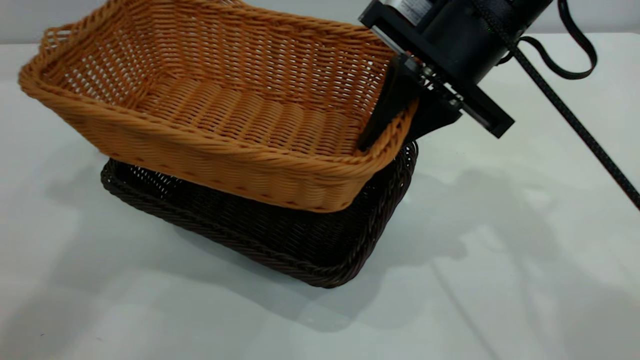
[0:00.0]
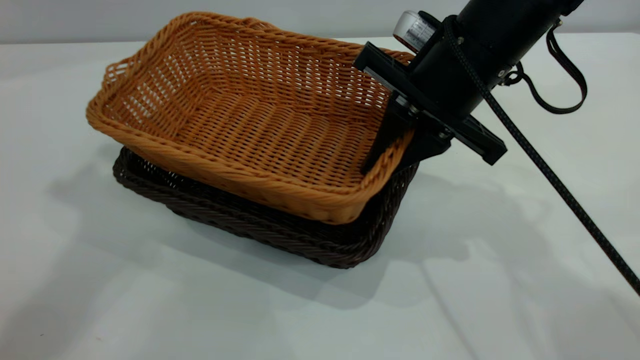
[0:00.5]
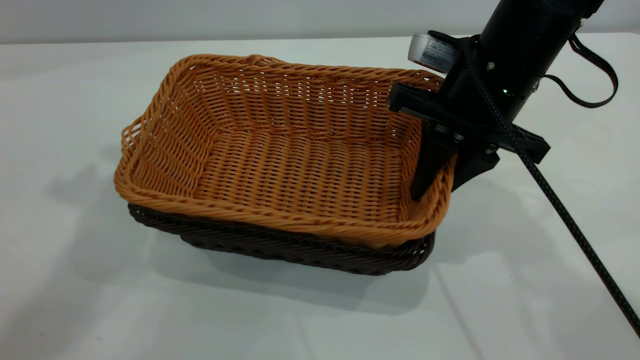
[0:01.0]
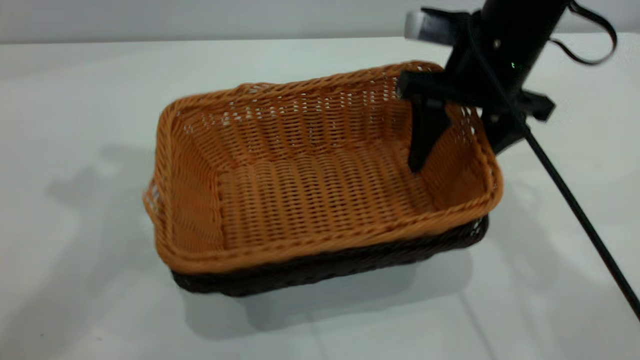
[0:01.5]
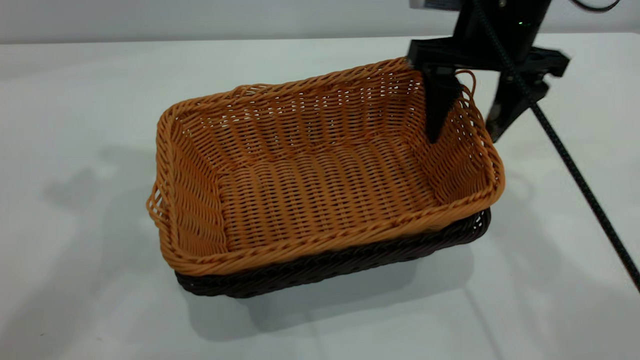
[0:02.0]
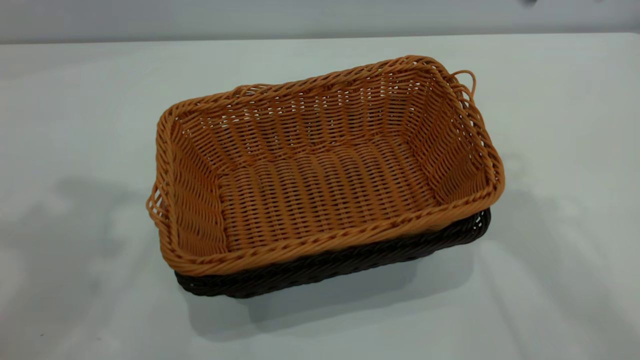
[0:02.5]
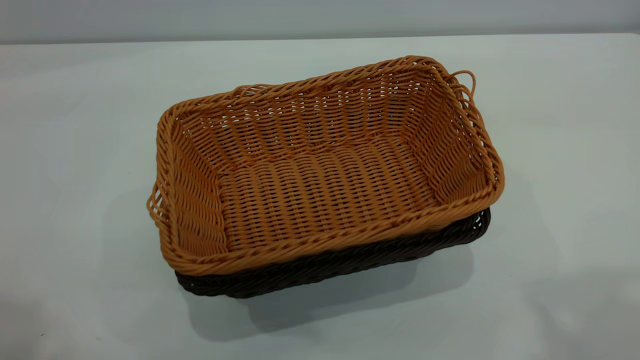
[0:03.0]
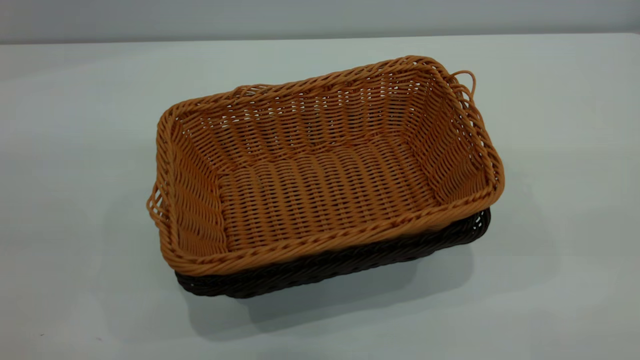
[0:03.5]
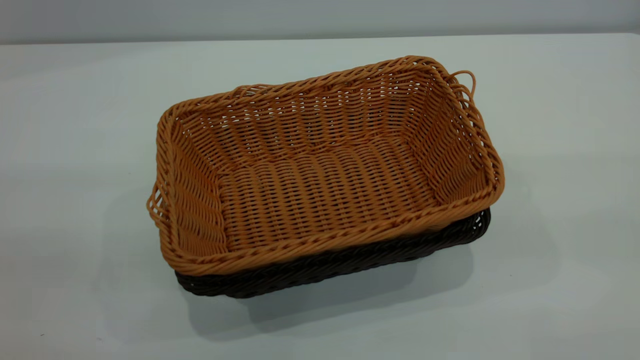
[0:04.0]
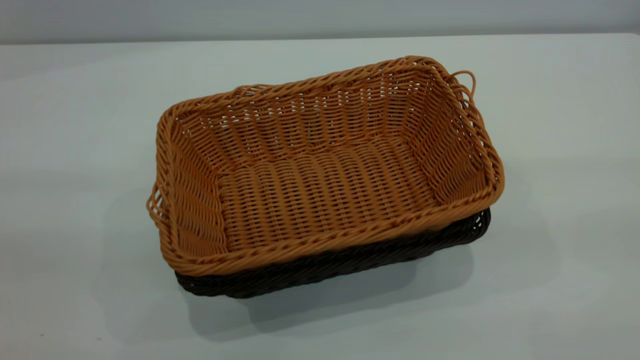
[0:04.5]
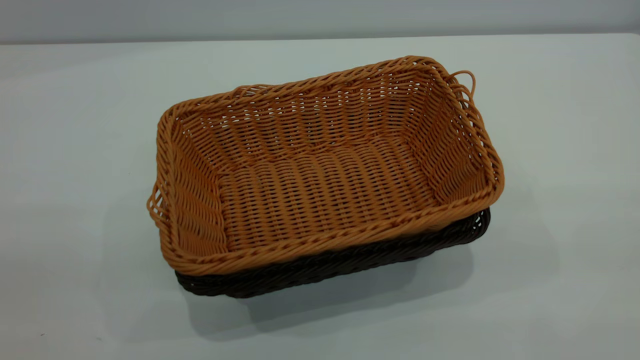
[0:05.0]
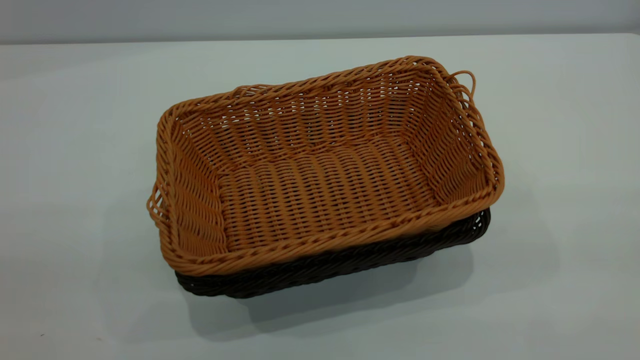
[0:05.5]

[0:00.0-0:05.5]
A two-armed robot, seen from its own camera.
Task of the whole recording: the left gripper grasp the black basket and place it in the center of the table, the right gripper grasp the brown basket and place it inside the black one.
Step, 0:00.0 to 0:02.0: Place the light basket on the dark basket.
0:00.0 to 0:02.0: The right gripper opens.
0:02.0 to 0:03.5: The left gripper is displaced backward by roughly 25 cm, while the right gripper heads backward, upward and to the right, covering approximately 35 cm.

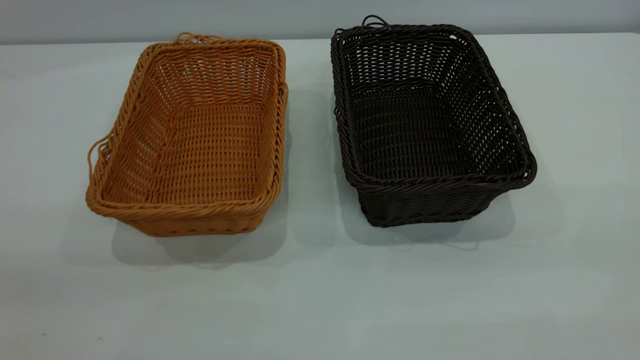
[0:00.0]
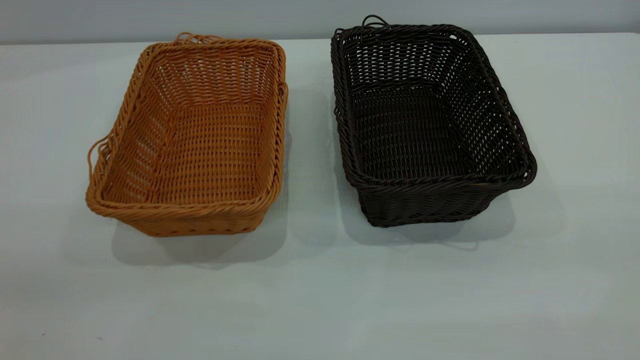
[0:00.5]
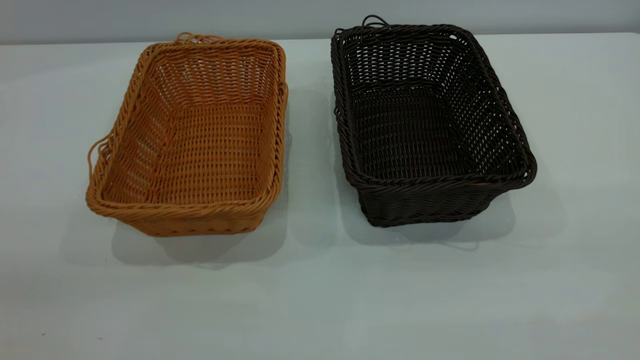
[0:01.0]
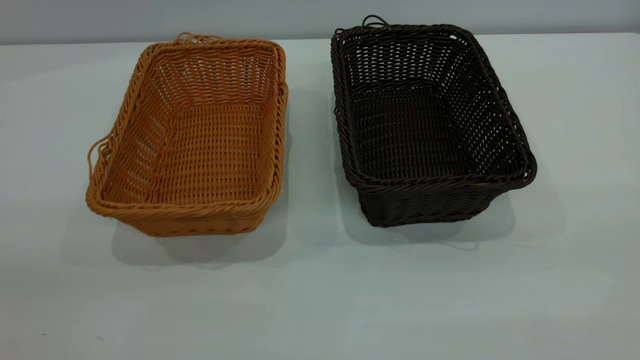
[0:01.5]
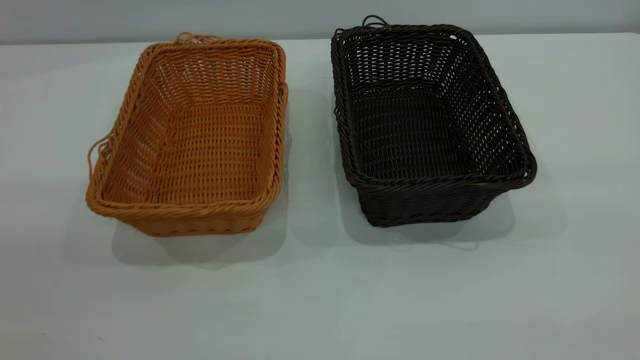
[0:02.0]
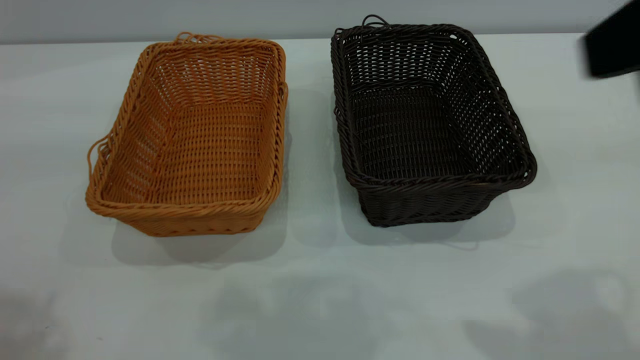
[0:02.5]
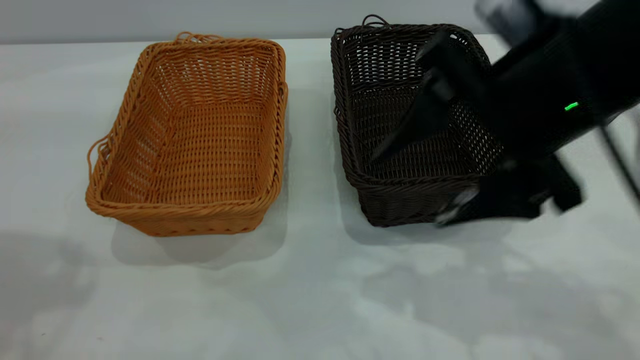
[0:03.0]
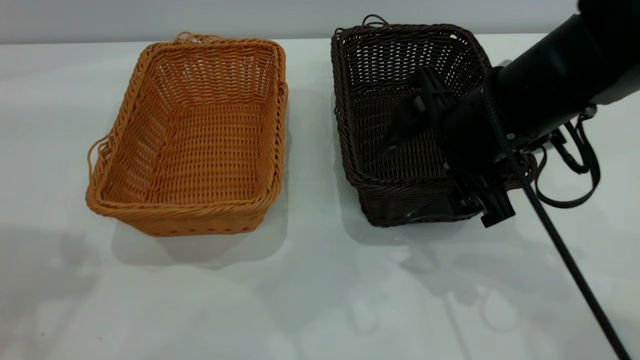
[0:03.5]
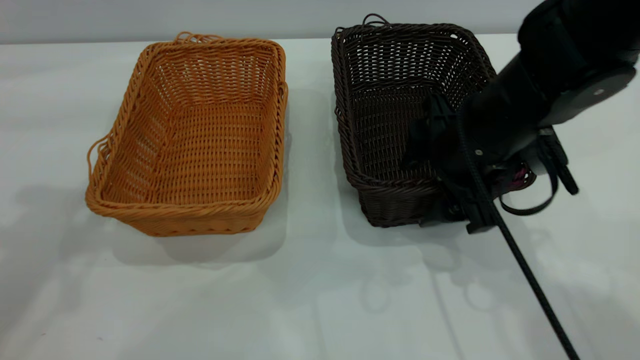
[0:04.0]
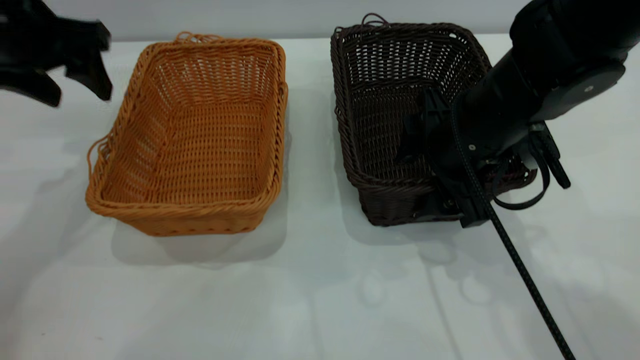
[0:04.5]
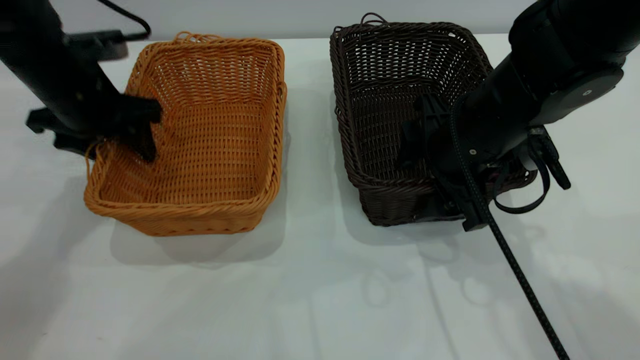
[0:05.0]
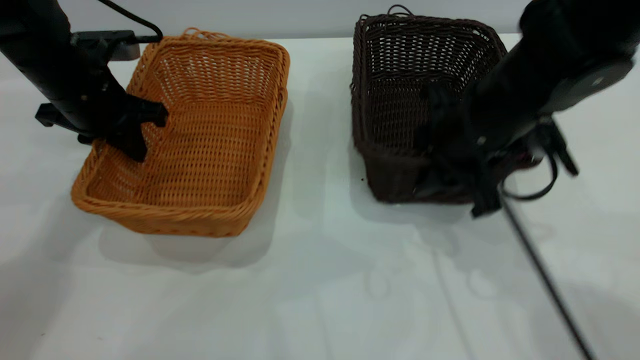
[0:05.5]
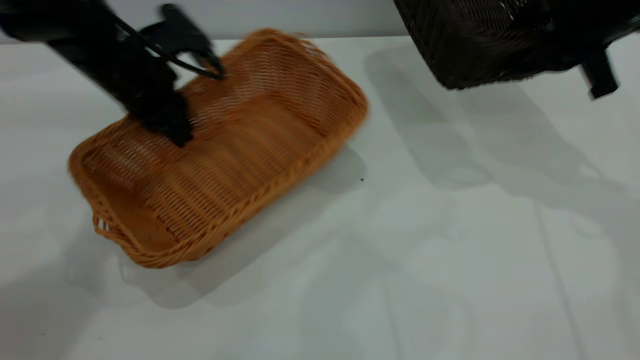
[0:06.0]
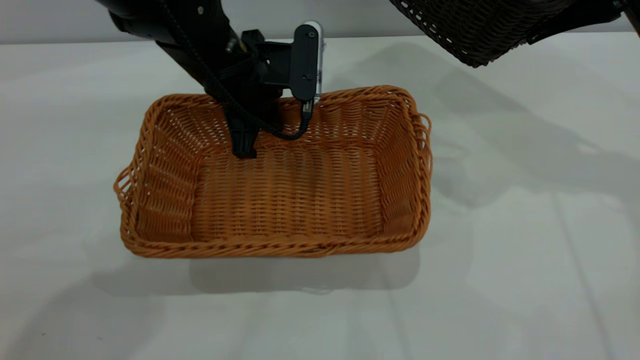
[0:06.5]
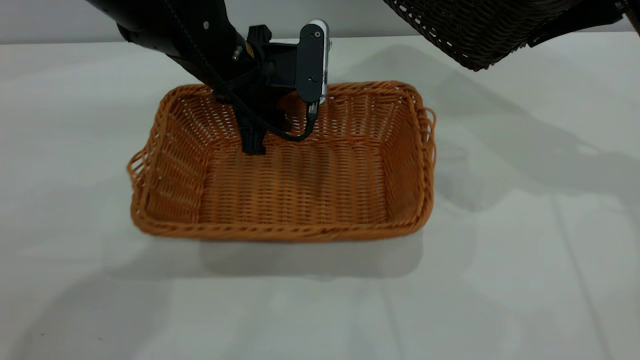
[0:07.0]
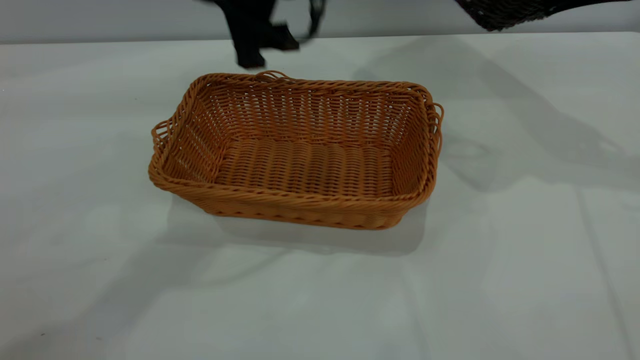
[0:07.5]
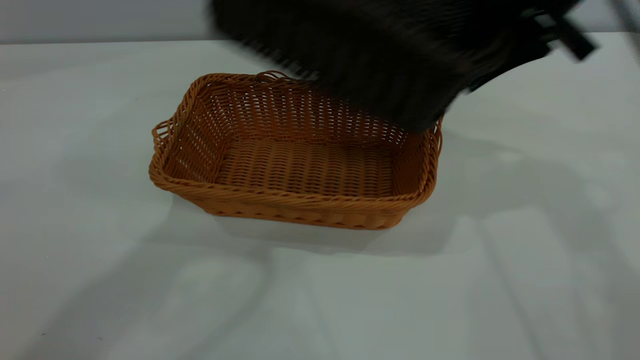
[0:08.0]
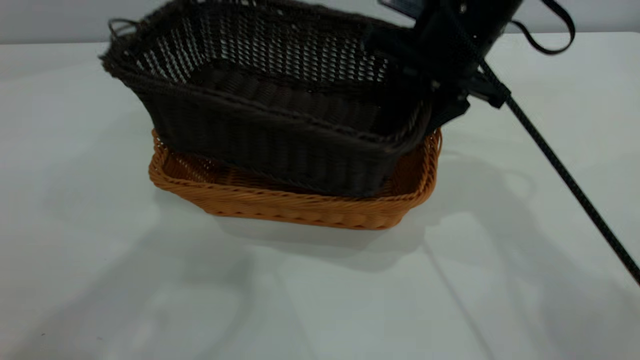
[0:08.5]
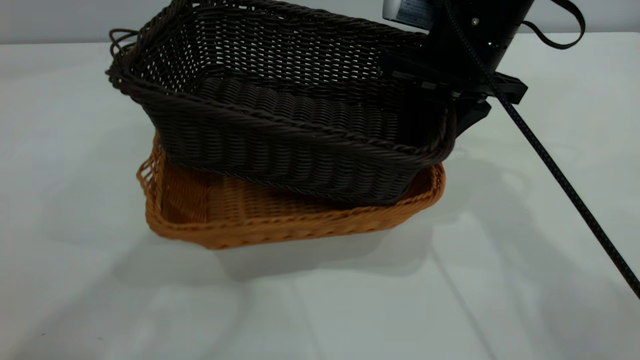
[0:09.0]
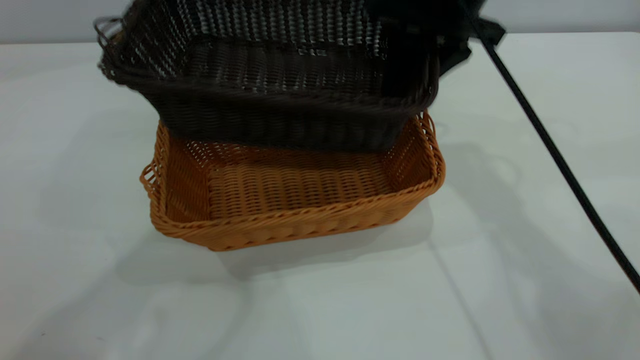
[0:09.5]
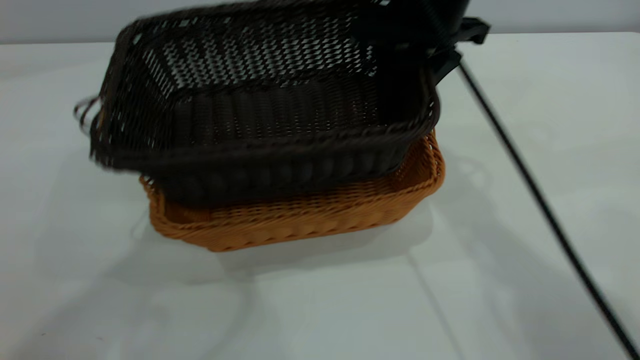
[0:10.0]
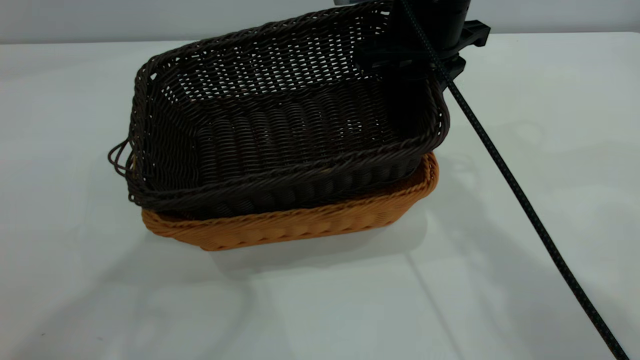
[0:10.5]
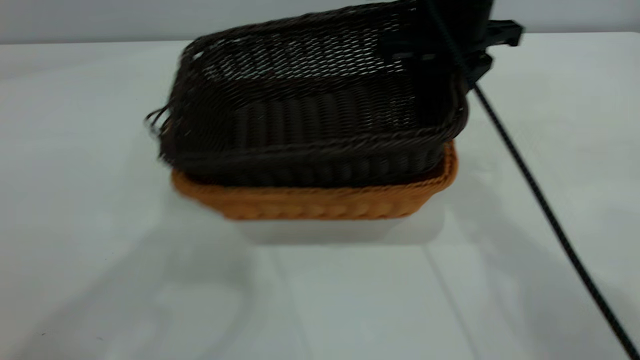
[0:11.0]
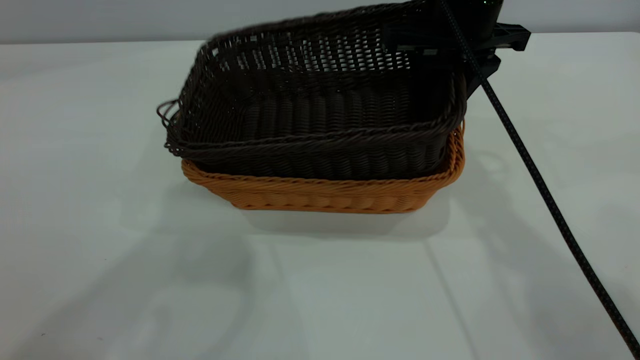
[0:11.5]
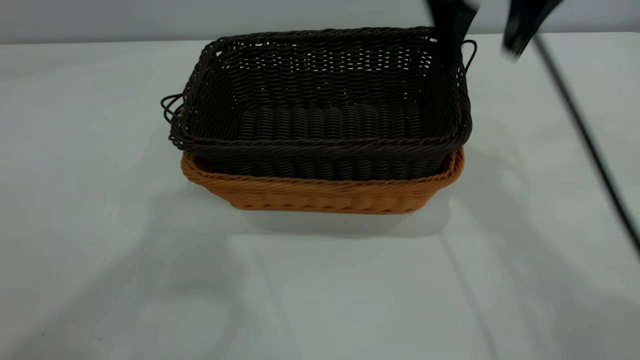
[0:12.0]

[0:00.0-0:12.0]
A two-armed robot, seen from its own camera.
Task of the whole recording: the left gripper grasp the brown basket and place it in the center of the table, the right gripper grasp the black basket and place it inside the brown one.
Step, 0:00.0 to 0:05.5: Pick up the light basket with the right gripper.
Step, 0:06.0 to 0:07.0: Place the light-colored basket in the center.
Step, 0:07.5 to 0:12.0: Place the dark basket on top of the light basket.
0:02.0 to 0:04.0: The right gripper is displaced forward, downward and to the left by about 40 cm; the left gripper moves forward, about 25 cm.
0:04.0 to 0:06.0: The left gripper is displaced downward, forward and to the right by about 25 cm, and closes; the right gripper shifts approximately 15 cm to the right, upward and forward, and closes up.
0:06.0 to 0:08.0: The right gripper is displaced to the left by about 10 cm; the left gripper is displaced upward by about 35 cm, and opens up.
0:08.0 to 0:10.0: The right gripper heads to the left, covering approximately 10 cm.
0:10.0 to 0:12.0: The right gripper heads upward and to the right, covering roughly 10 cm, and opens its fingers.

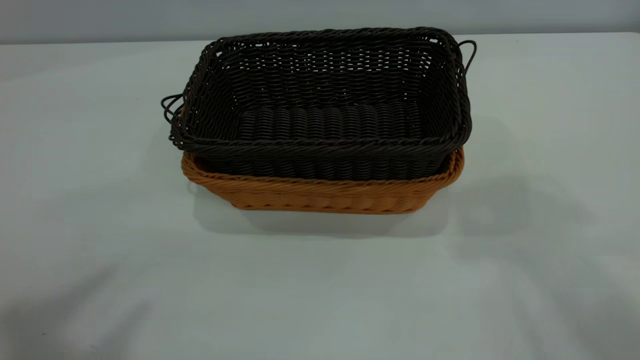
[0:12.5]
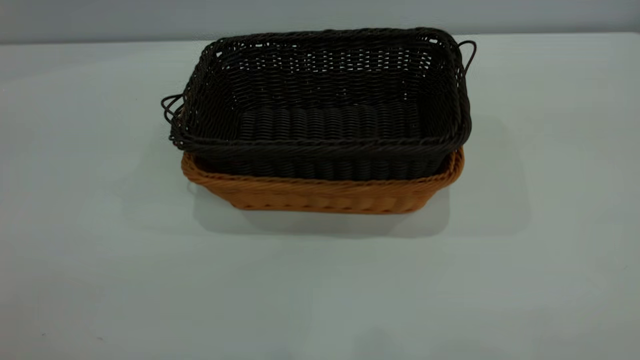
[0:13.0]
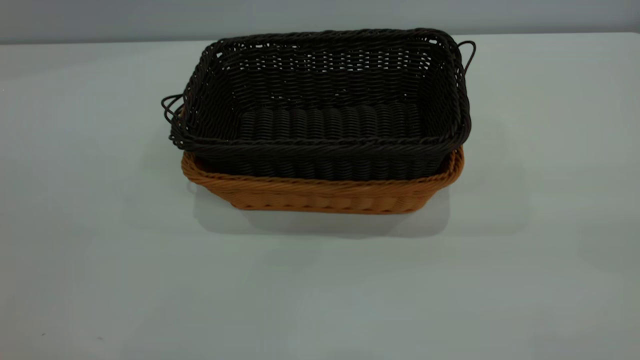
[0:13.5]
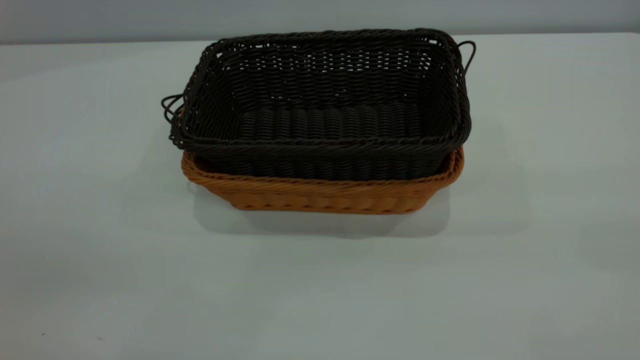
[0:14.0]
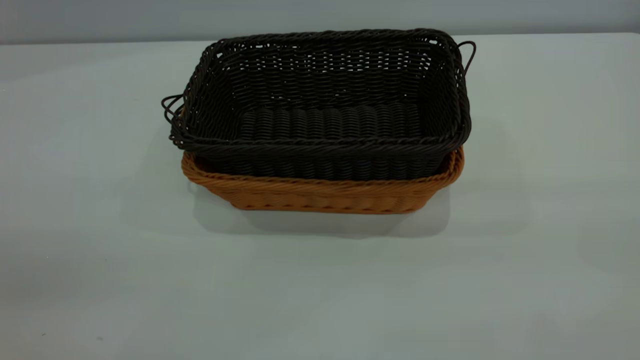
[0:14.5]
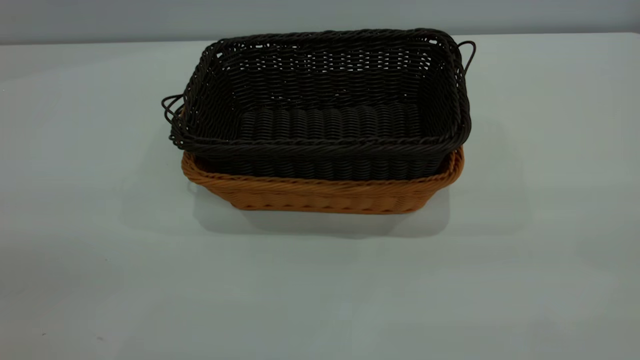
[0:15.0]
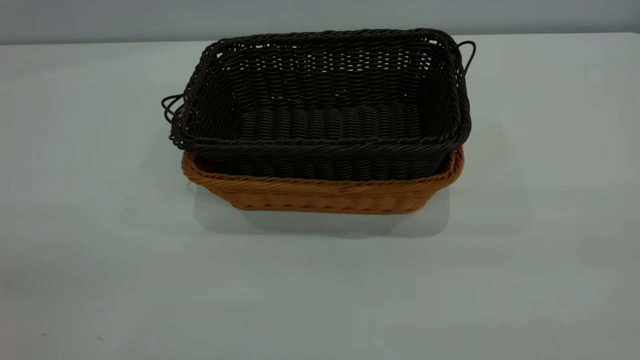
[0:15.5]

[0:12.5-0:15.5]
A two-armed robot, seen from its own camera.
Task of the whole recording: the left gripper grasp the brown basket and place it in the center of the table, the right gripper grasp the black basket and place it inside the brown one.
0:12.5 to 0:14.0: The left gripper goes approximately 20 cm downward.
